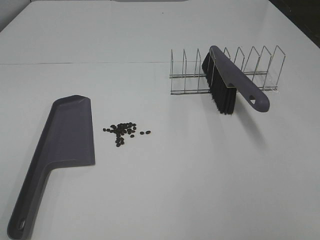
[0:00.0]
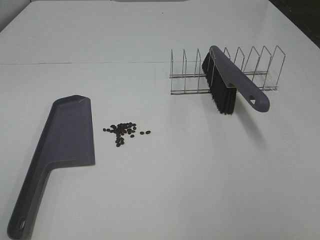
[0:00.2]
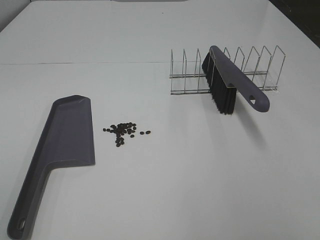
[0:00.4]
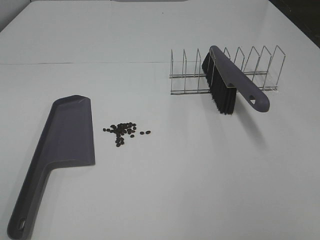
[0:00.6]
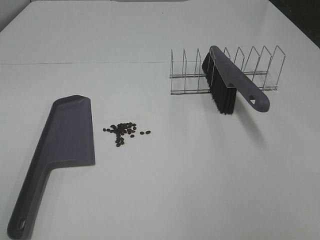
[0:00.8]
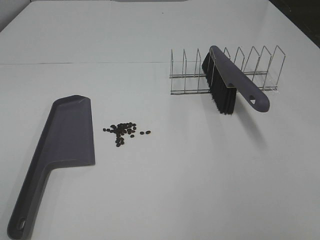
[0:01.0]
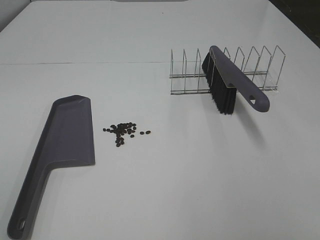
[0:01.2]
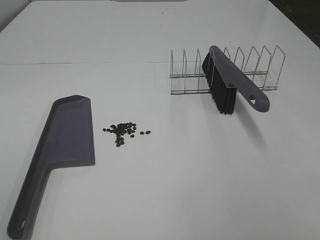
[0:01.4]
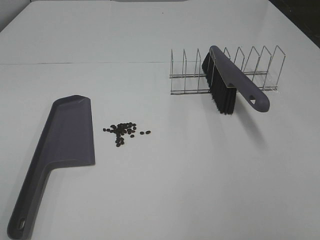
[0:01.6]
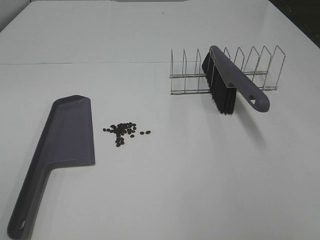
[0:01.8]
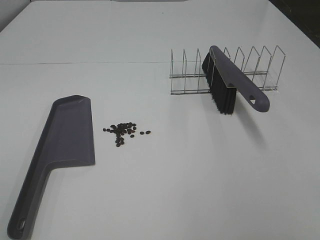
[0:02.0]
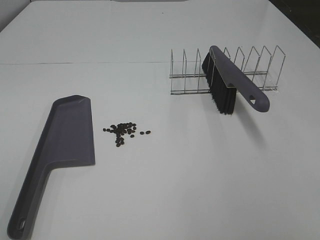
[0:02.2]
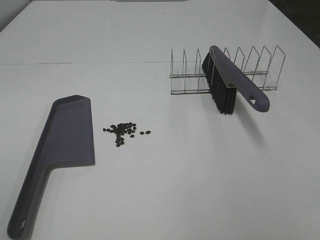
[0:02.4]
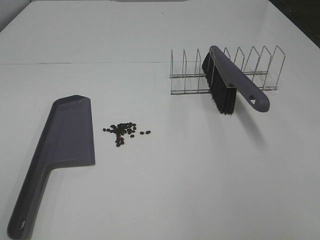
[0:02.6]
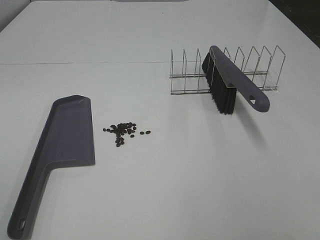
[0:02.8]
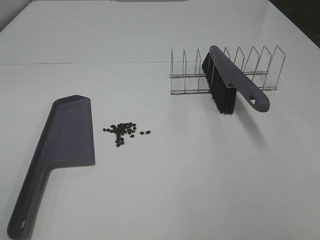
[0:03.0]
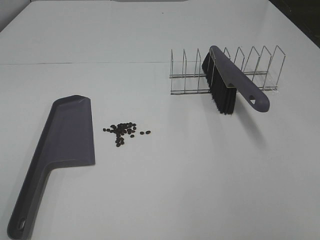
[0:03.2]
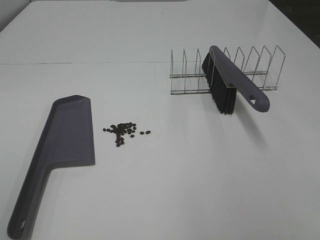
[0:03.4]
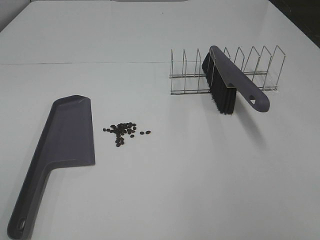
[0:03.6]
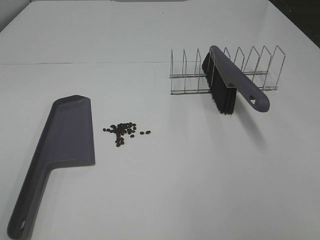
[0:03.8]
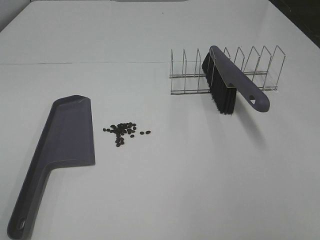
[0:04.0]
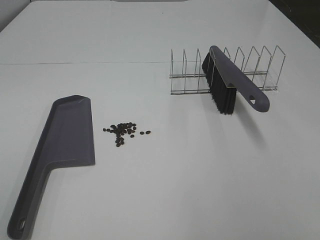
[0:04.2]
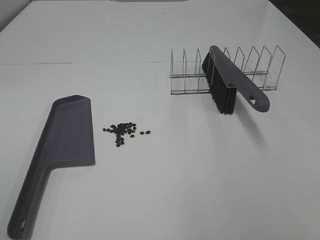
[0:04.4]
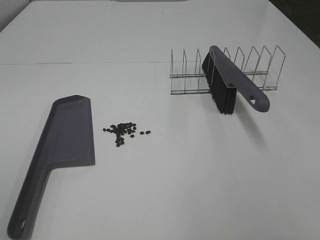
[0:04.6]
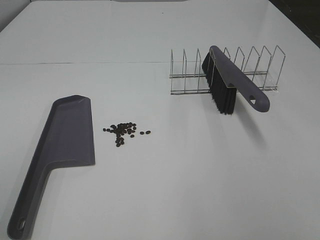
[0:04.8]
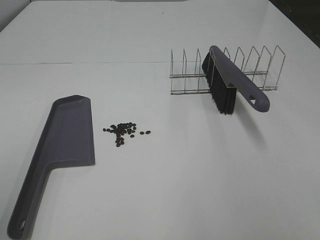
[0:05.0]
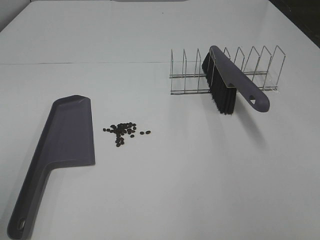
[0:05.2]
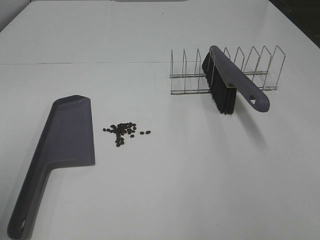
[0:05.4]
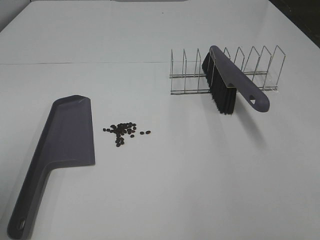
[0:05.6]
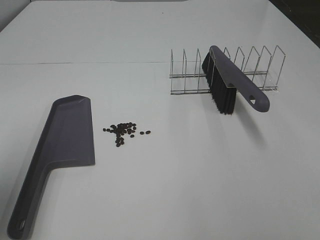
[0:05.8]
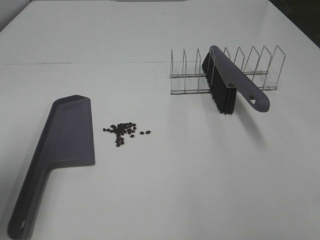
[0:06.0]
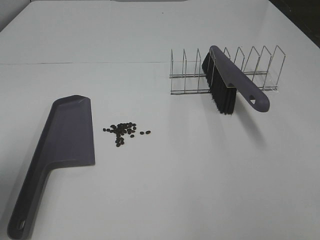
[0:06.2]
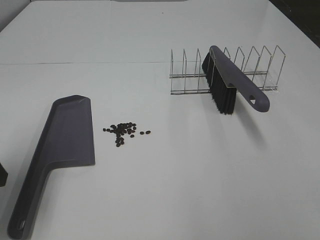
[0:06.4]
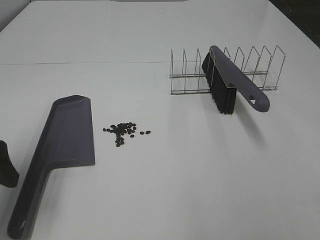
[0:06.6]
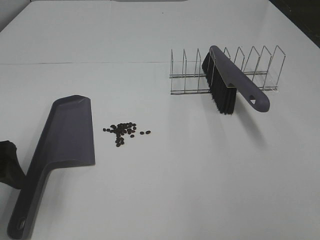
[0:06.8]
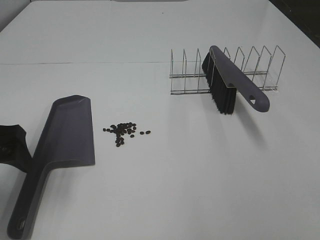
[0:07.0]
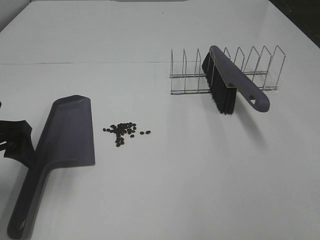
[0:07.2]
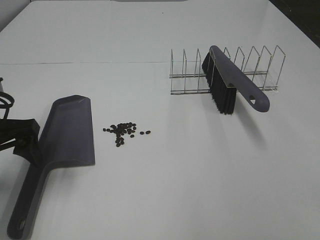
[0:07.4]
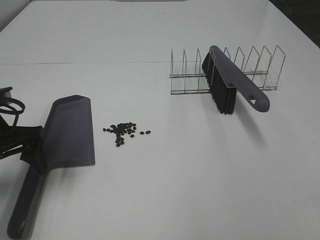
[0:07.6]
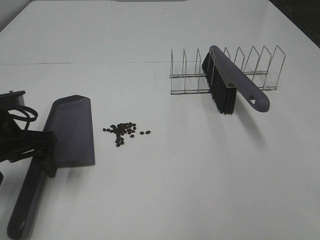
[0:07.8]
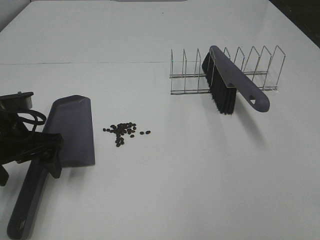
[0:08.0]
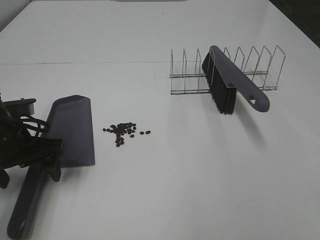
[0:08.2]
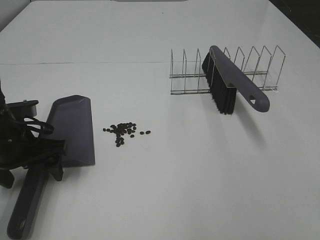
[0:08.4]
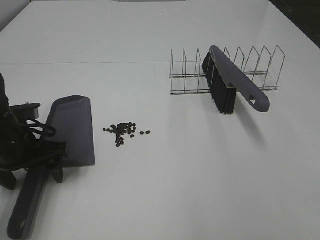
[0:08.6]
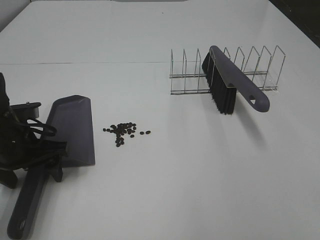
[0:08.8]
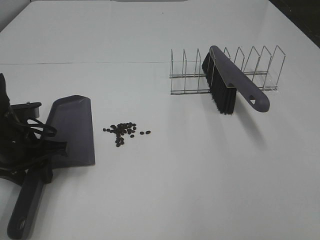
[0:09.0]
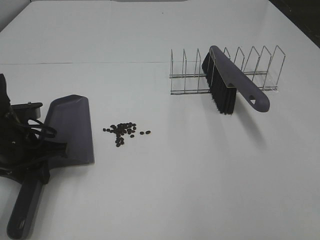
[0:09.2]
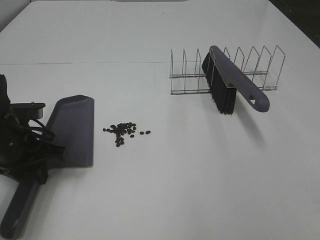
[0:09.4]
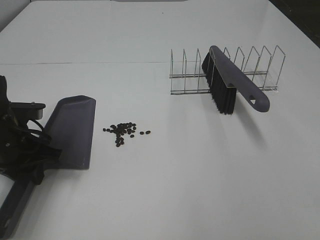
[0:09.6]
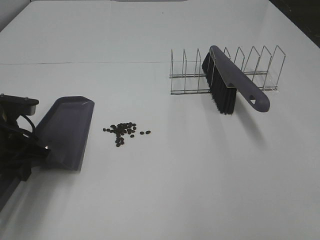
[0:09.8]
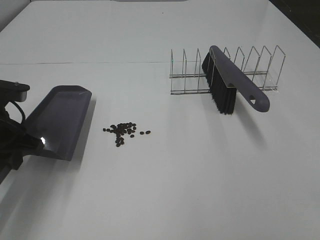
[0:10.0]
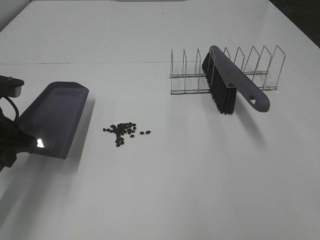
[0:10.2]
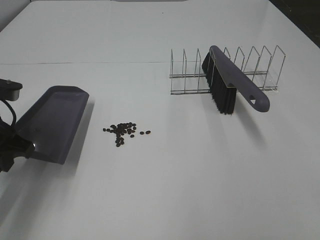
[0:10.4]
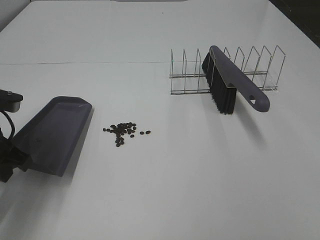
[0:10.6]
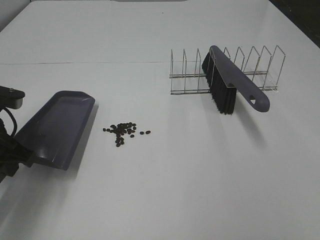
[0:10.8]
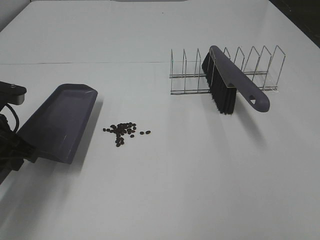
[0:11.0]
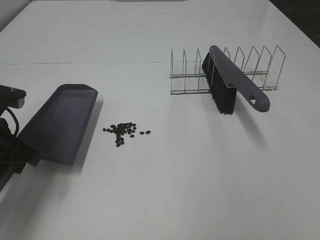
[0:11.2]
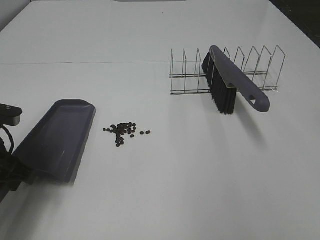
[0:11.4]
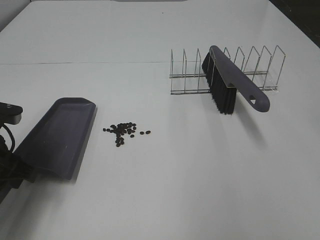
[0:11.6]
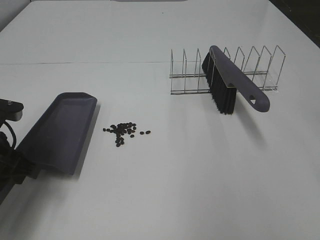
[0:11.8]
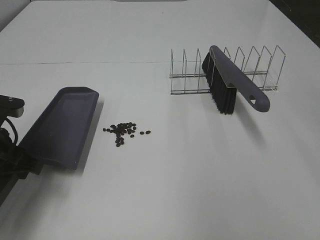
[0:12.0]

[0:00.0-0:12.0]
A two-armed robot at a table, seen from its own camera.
Task of the whole recording: Sweep Coffee Bean.
Step, 0:00.0 to 0:09.4: Left hand: grab the dustpan.
0:00.0 to 0:04.4: Both grippers stay about where they are.
0:04.4 to 0:06.0: The left gripper travels forward by approximately 20 cm.
0:06.0 to 0:07.6: The left gripper goes roughly 10 cm forward, downward and to the right.
0:07.6 to 0:09.0: The left gripper goes some 5 cm downward, and closes its fingers.
0:09.0 to 0:10.4: The left gripper is displaced upward by some 5 cm.

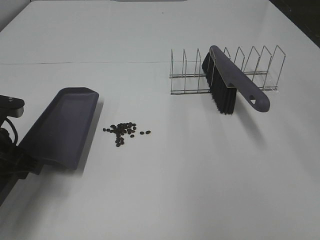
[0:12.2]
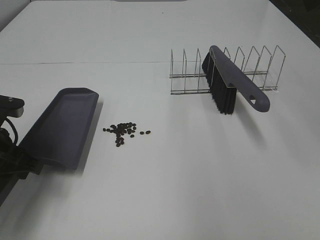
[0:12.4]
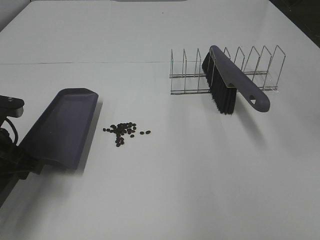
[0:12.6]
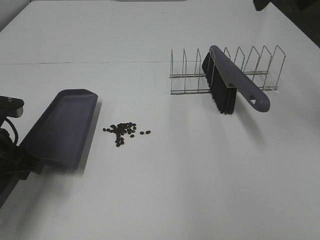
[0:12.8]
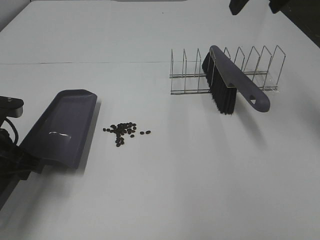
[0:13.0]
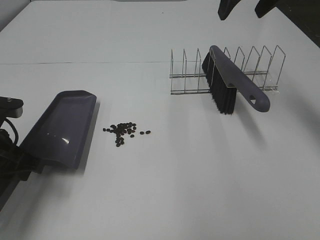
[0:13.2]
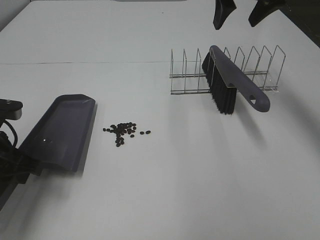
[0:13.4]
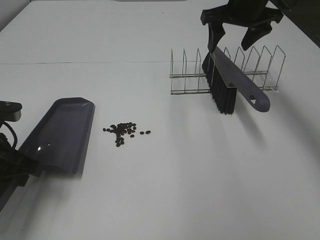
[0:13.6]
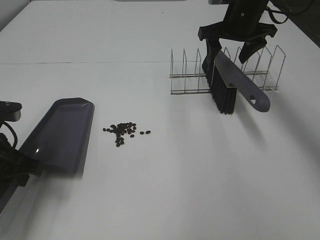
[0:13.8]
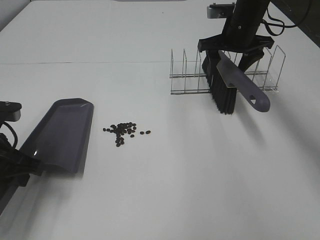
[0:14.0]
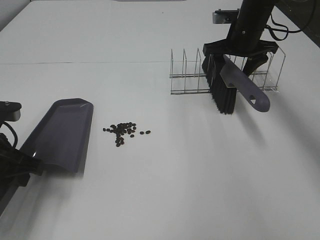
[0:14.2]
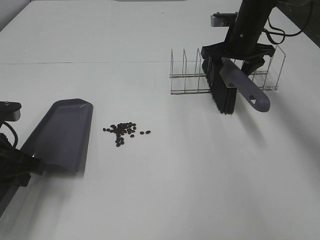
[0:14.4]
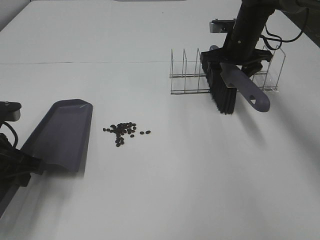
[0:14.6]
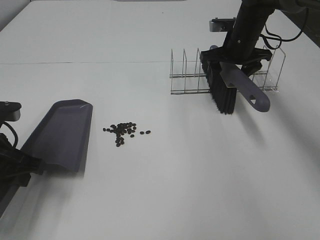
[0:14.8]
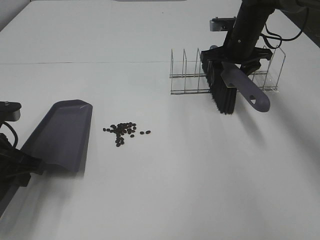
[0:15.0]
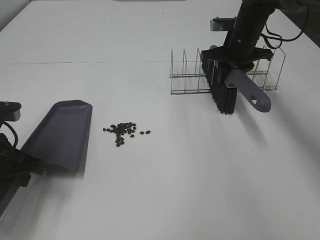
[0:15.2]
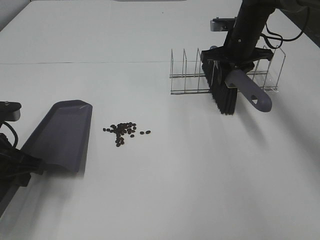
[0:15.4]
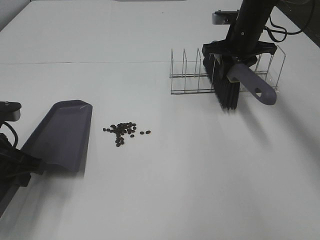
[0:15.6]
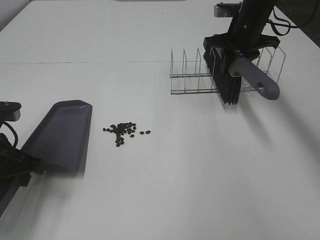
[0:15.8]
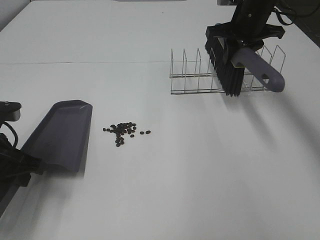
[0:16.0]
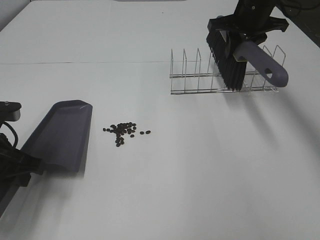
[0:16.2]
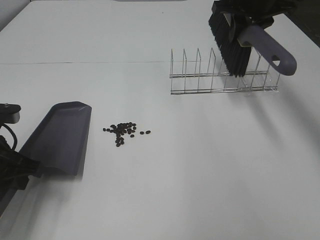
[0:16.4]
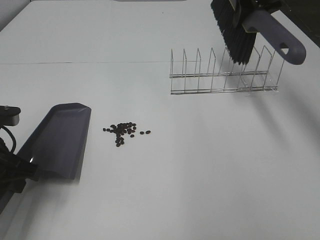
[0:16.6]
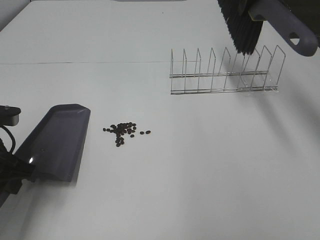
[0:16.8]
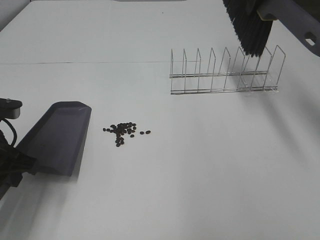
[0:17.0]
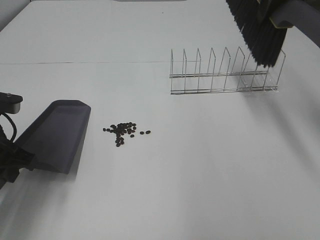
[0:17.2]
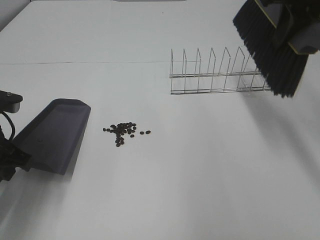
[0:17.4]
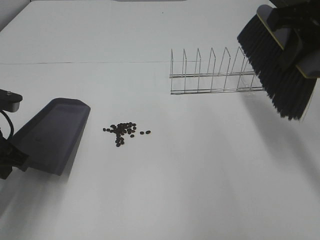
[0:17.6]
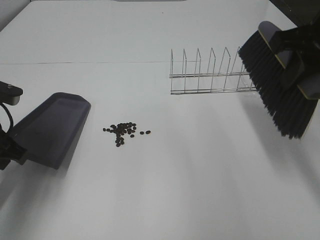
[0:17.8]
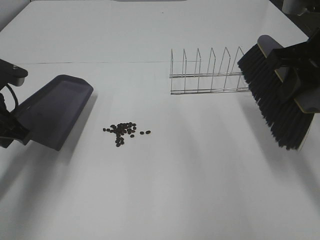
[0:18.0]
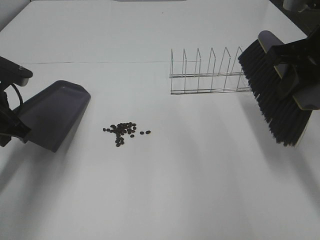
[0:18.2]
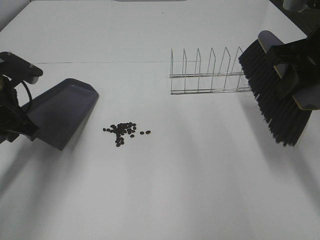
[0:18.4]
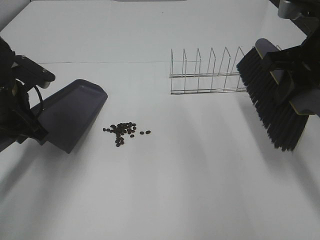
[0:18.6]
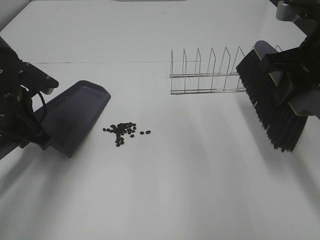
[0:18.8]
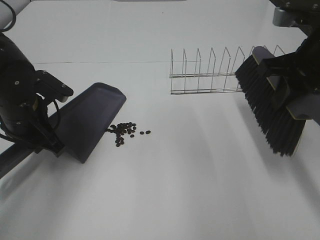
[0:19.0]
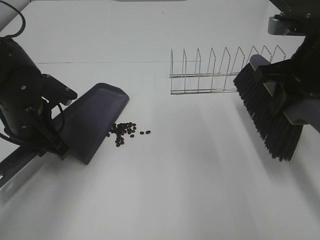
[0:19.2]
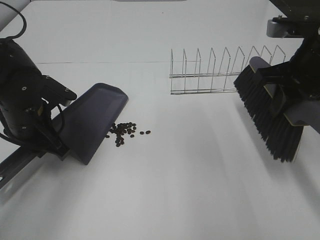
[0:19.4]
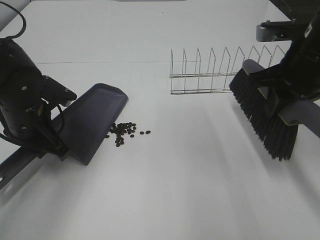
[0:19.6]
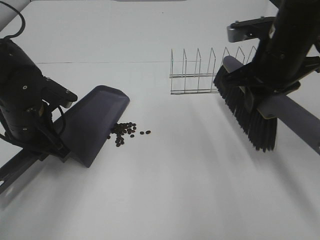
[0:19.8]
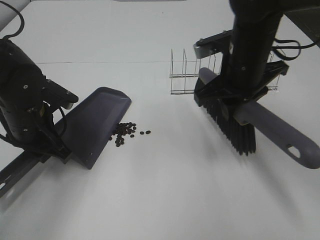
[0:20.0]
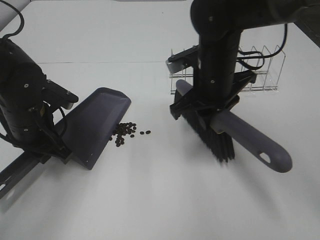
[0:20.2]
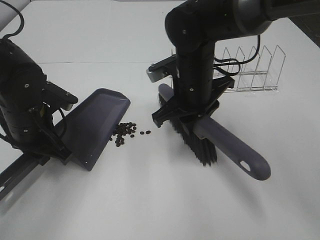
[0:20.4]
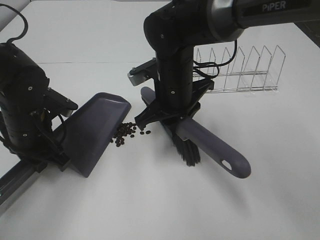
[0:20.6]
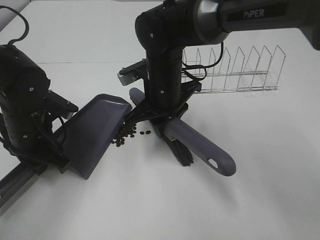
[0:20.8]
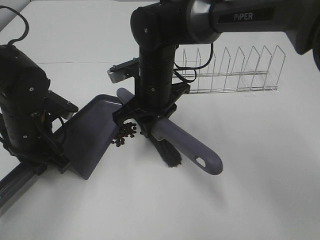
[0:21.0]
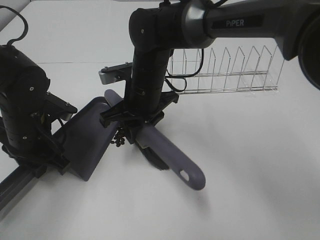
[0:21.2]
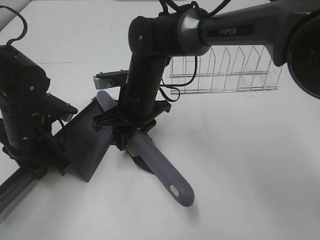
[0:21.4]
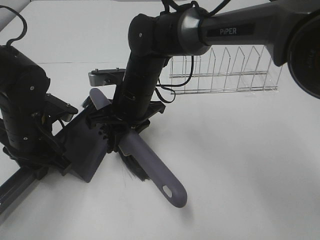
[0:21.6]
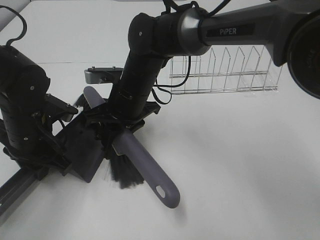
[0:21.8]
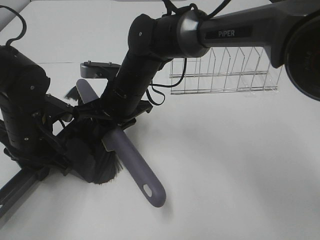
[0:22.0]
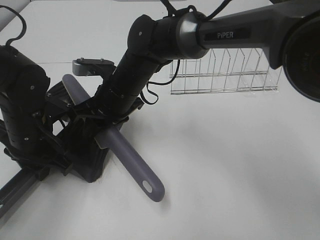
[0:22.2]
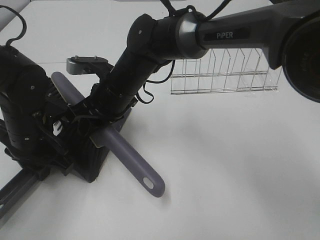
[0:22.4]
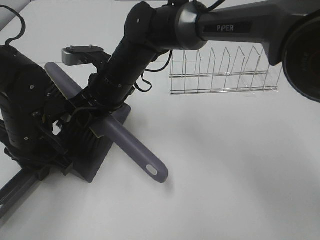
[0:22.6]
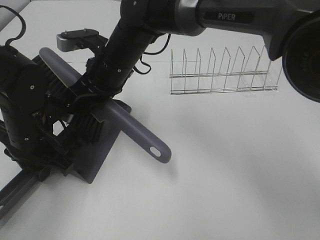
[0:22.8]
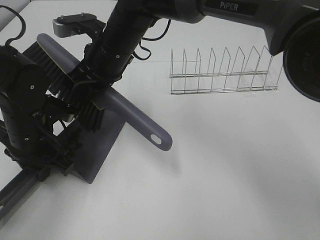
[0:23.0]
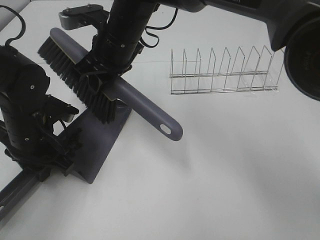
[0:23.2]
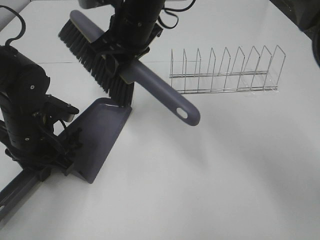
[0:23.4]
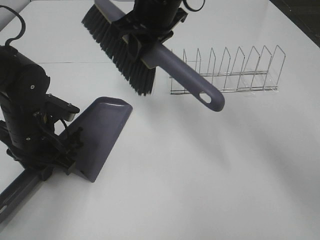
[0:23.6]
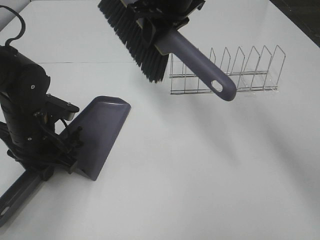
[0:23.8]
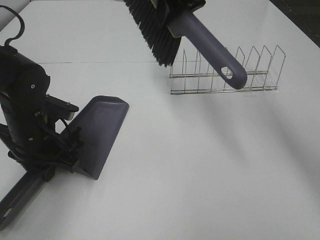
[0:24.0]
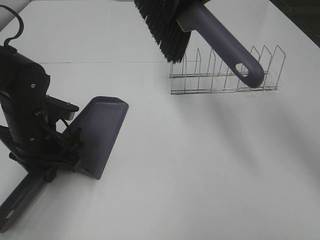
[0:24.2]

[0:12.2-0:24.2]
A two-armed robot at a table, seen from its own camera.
Task of the whole recording: Sweep Coffee Bean.
Step, 0:12.2 to 0:15.2: Right hand:grab the broom.
Step, 0:12.2 to 0:19.4: Left hand: move the dustpan to the left side of the coffee beans.
Step, 0:15.4 to 0:23.2: Right hand:sweep the coffee beans into the dustpan.
0:12.2 to 0:13.8: The right gripper moves forward and downward, roughly 30 cm.
0:13.8 to 0:15.2: The right gripper goes some 5 cm downward, and closes.
0:15.2 to 0:16.6: The right gripper moves upward, some 15 cm.
0:16.6 to 0:18.2: The left gripper is displaced forward by some 5 cm. Meanwhile the right gripper shifts approximately 20 cm backward.
0:18.2 to 0:19.8: The left gripper heads to the right, covering some 5 cm; the right gripper shifts some 10 cm to the left and downward.
0:19.8 to 0:21.2: The right gripper is displaced to the left and downward by roughly 20 cm.
0:22.6 to 0:24.2: The right gripper goes approximately 25 cm upward and to the right.
